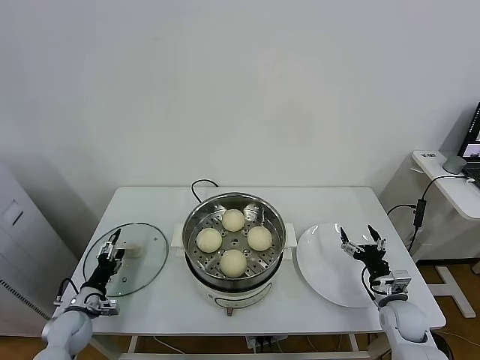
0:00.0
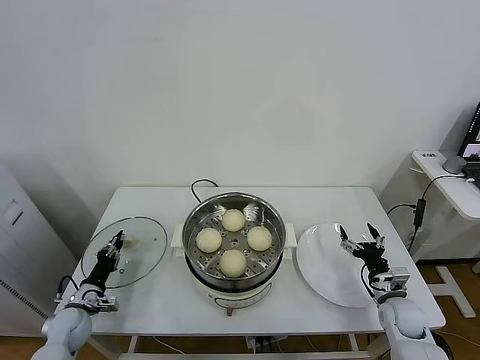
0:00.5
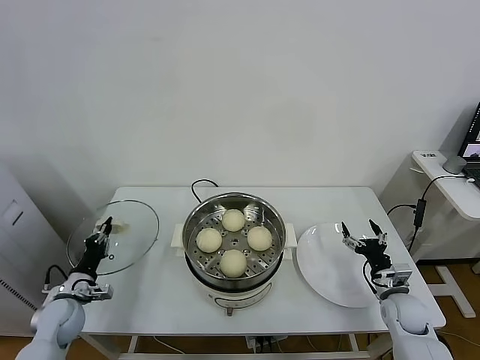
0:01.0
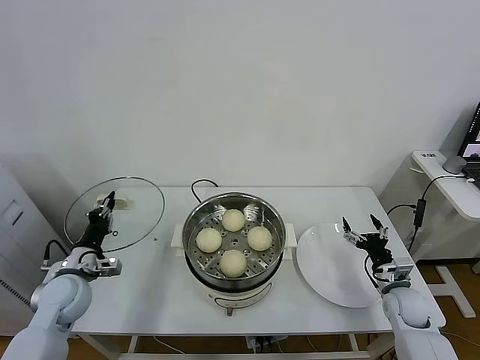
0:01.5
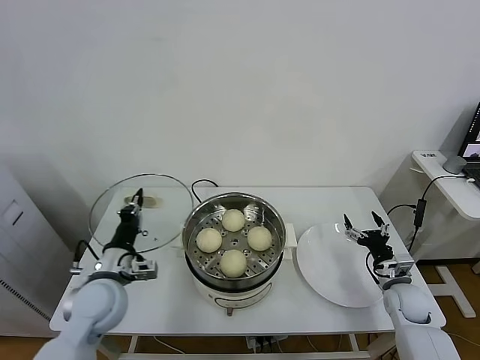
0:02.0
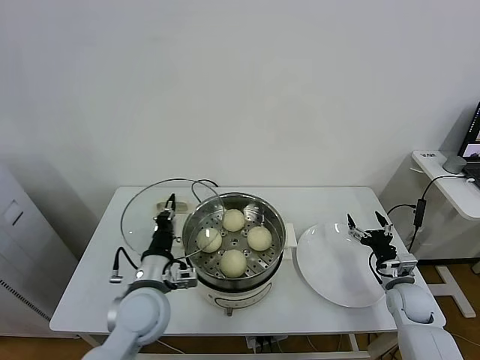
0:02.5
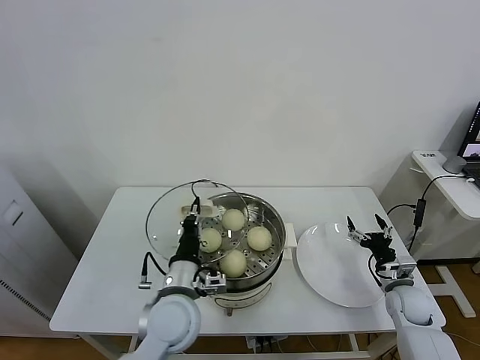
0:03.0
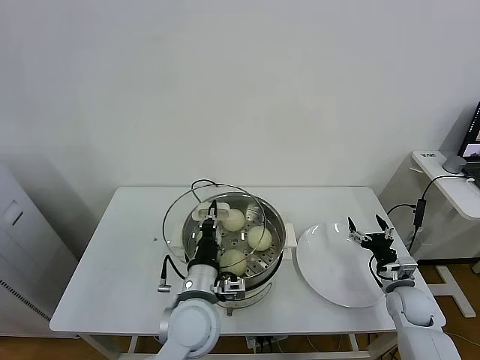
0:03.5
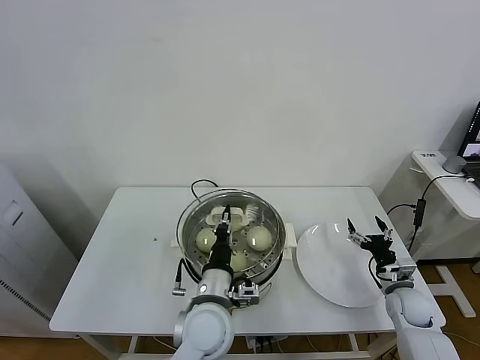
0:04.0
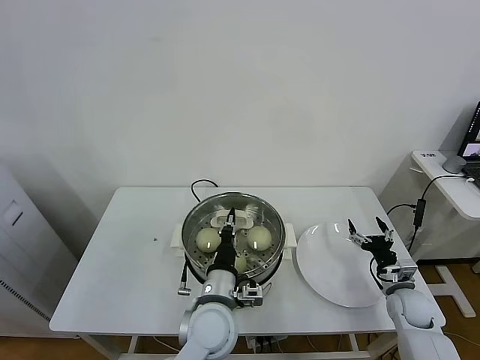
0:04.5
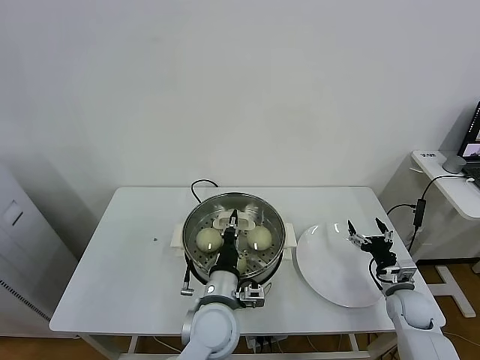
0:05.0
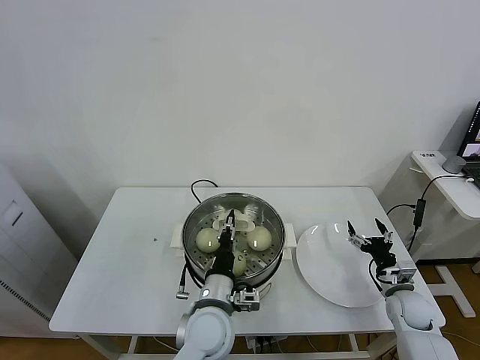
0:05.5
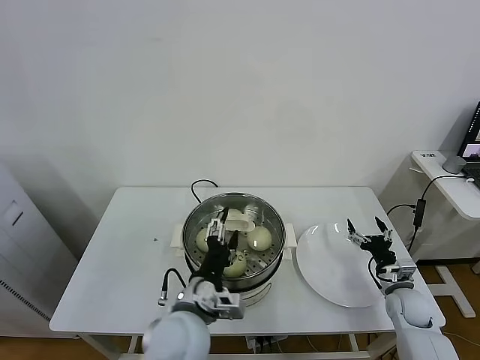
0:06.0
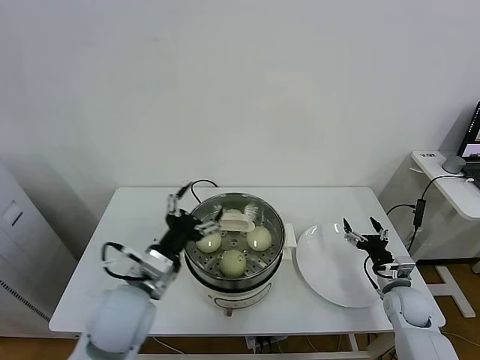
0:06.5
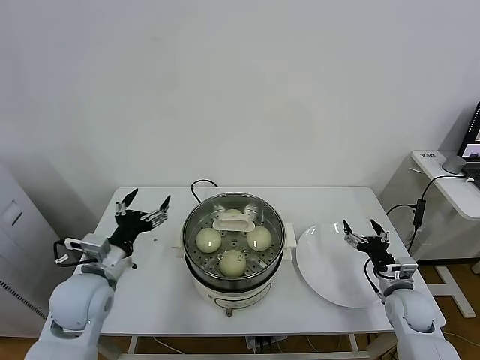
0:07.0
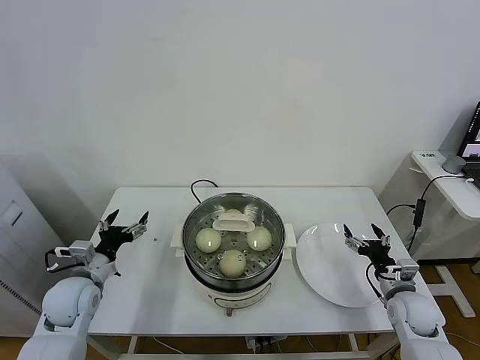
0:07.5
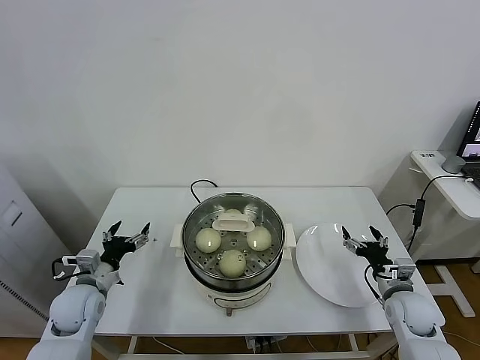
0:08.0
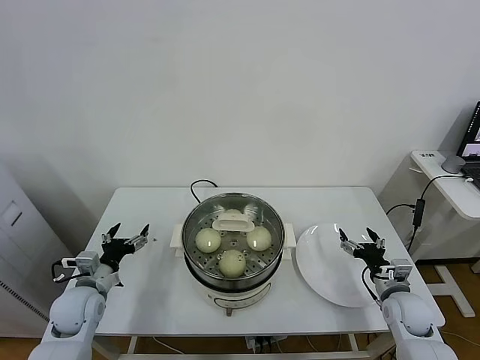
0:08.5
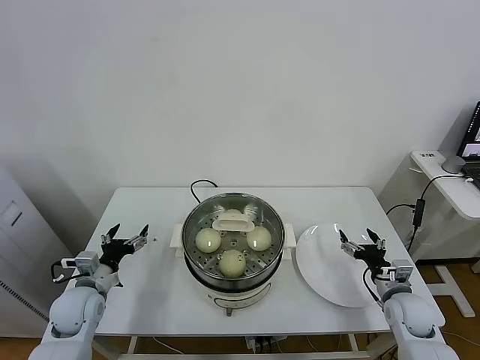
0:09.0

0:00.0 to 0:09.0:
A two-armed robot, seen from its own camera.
Task of the whole recording: take steamed baozi put them in steamer.
Step, 0:01.0 to 0:06.0: Place the pot lid on the steamer with left gripper.
0:00.0 to 0:02.0: The left gripper heads upward and to the right, covering approximately 25 cm, and closes.
0:02.0 to 0:04.5: The left gripper goes some 20 cm to the right.
0:04.5 to 0:07.0: The left gripper goes about 25 cm to the left, and opens.
0:07.0 to 0:09.0: The left gripper is displaced downward and to the left by roughly 15 cm.

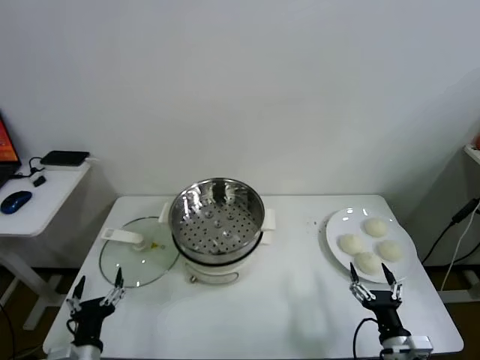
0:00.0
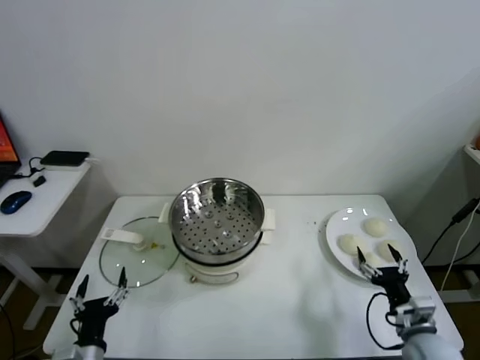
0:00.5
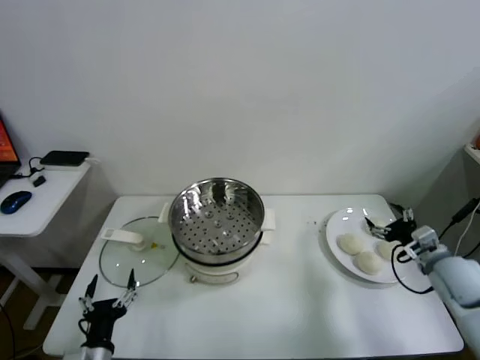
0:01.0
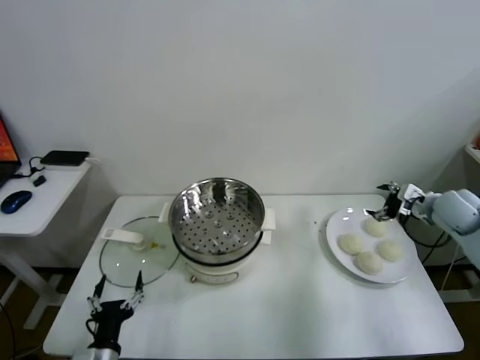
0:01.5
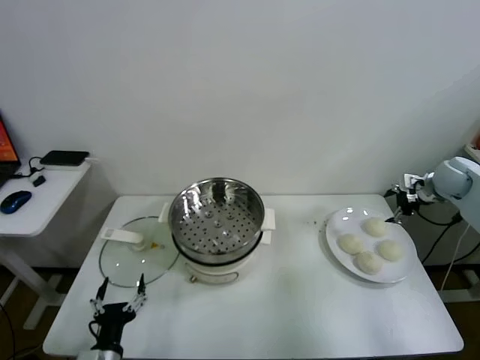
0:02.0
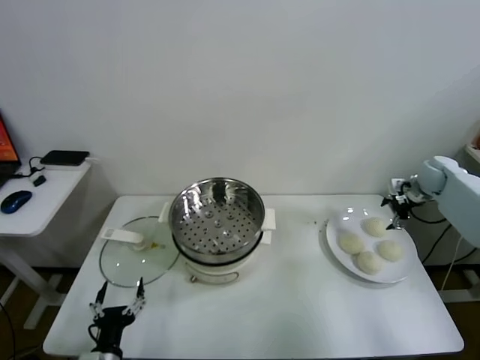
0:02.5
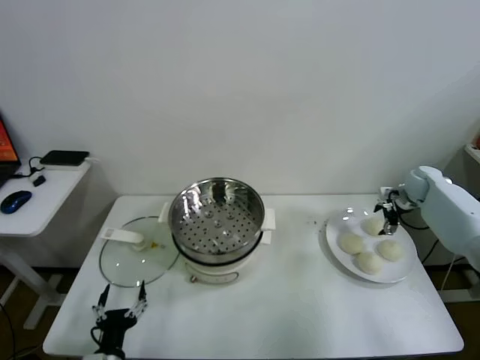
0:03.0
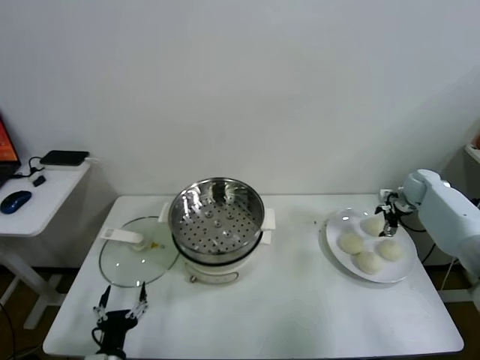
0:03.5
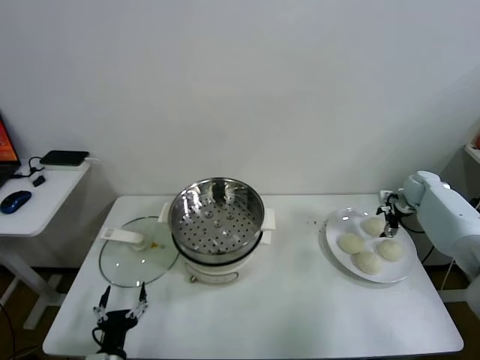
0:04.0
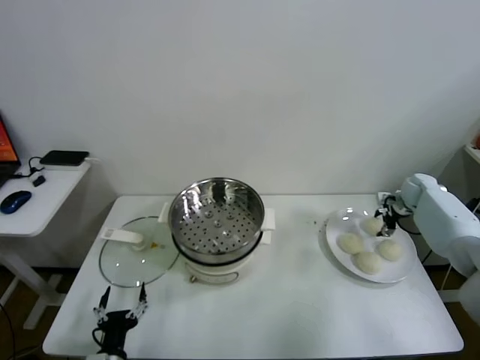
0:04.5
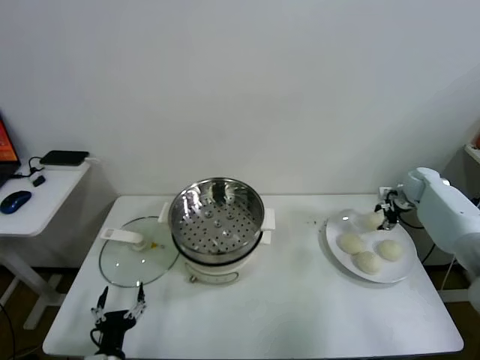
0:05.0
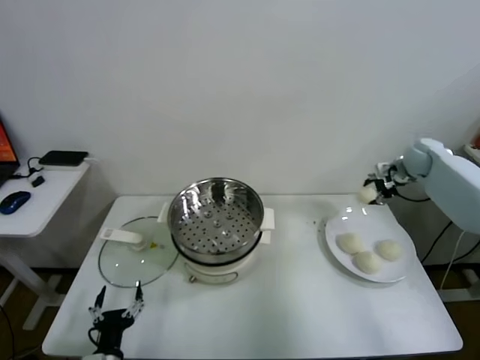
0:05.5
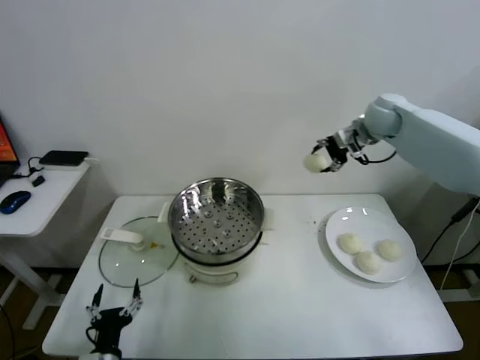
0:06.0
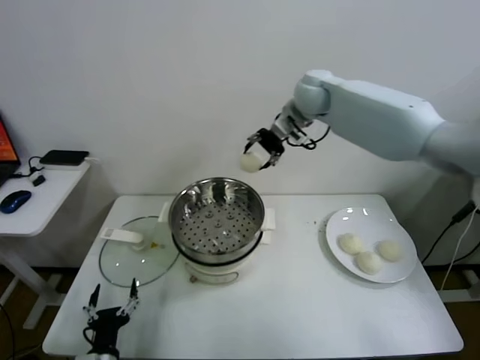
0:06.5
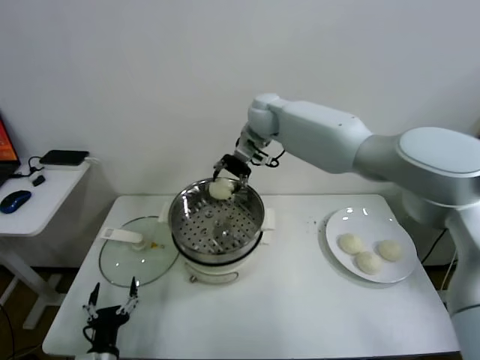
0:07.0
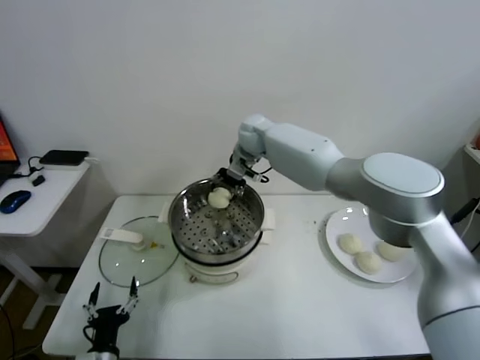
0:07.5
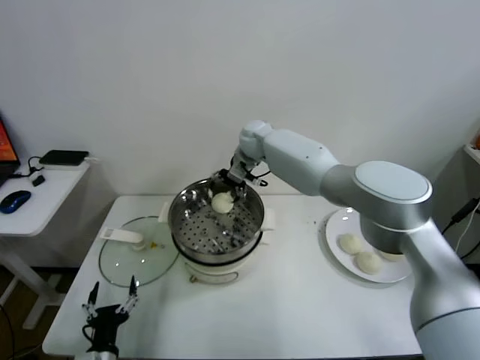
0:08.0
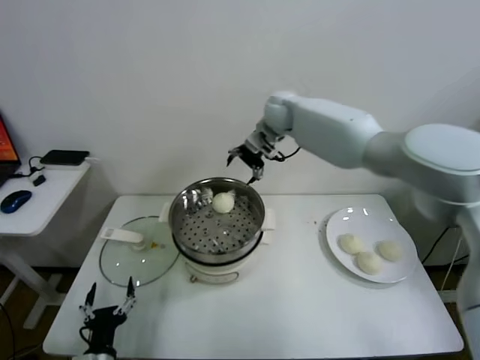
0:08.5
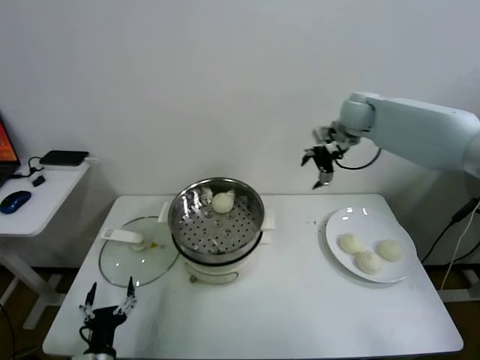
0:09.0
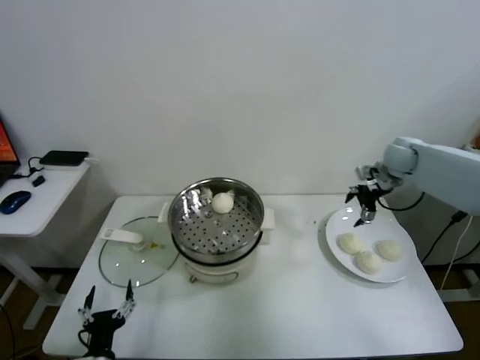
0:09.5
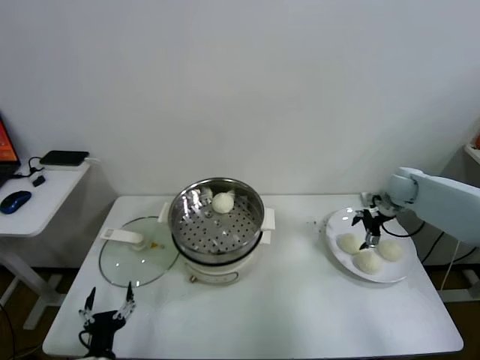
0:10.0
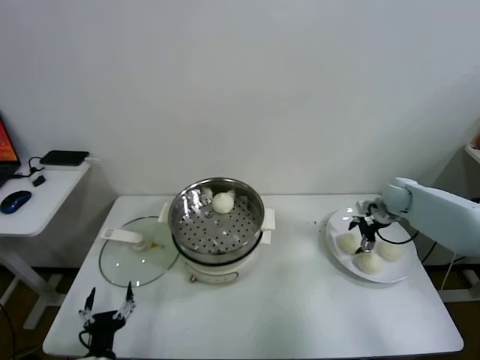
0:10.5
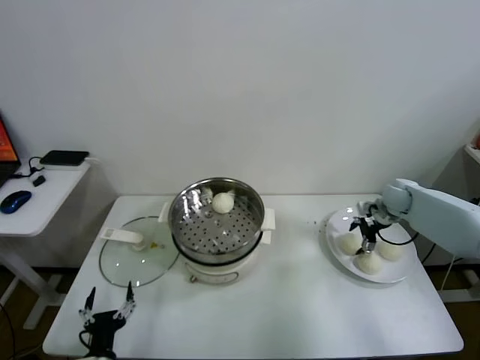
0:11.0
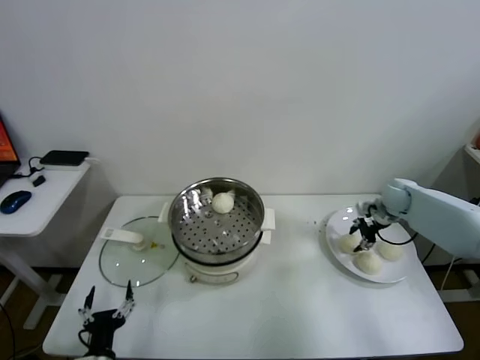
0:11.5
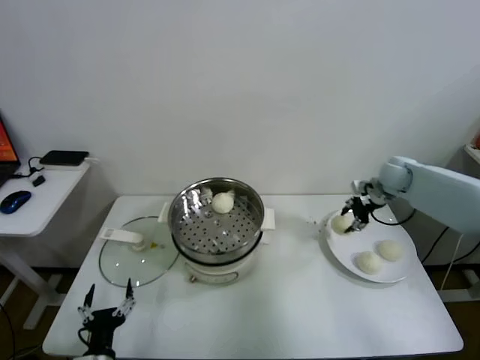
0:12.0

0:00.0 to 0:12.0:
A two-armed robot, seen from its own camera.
Task of the whole recording: take steamed baozi put them in steamer.
Step, 0:00.0 to 0:04.5: Grasp the baozi in the plate with right gripper.
Step, 0:05.0 to 0:08.0: Place the baozi on the steamer with right gripper.
Step, 0:08.5 to 0:11.5: Grasp the baozi in the plate with right gripper.
0:02.0 to 0:04.0: The right gripper goes approximately 10 cm downward.
0:04.0 to 0:06.0: The right gripper is displaced upward and to the left by some 30 cm, and closes.
0:06.0 to 0:08.0: The right gripper moves to the left, roughly 25 cm, and opens up.
0:08.0 to 0:10.0: The right gripper is displaced to the right by roughly 40 cm.
0:10.0 to 0:12.0: The right gripper travels upward by about 5 cm, and closes up.

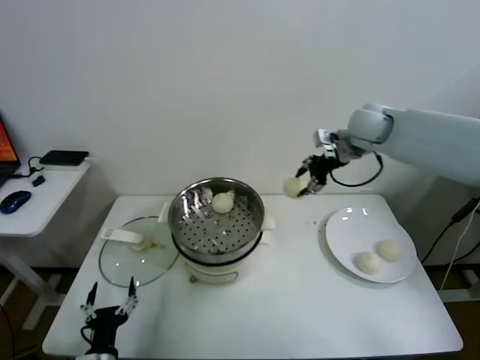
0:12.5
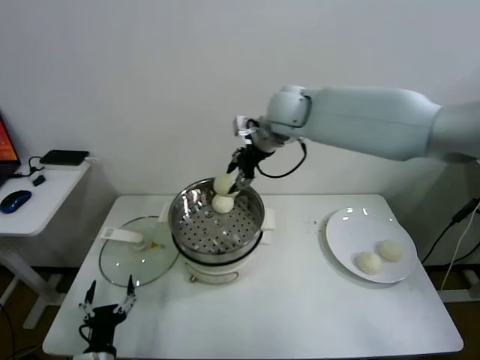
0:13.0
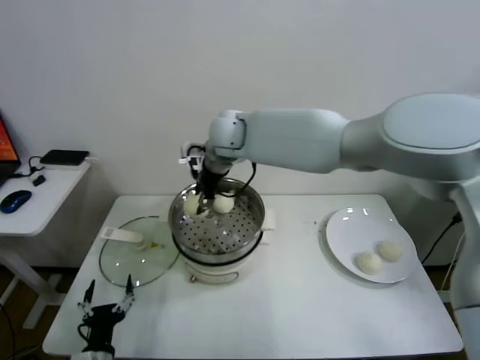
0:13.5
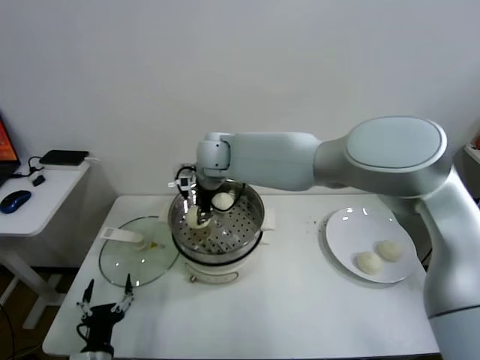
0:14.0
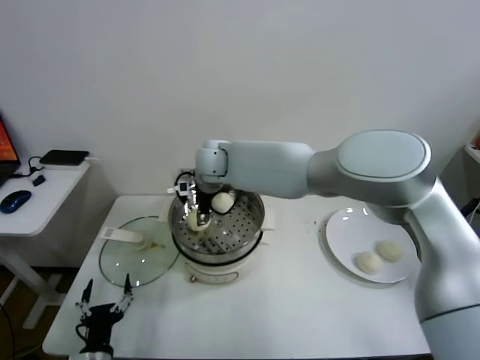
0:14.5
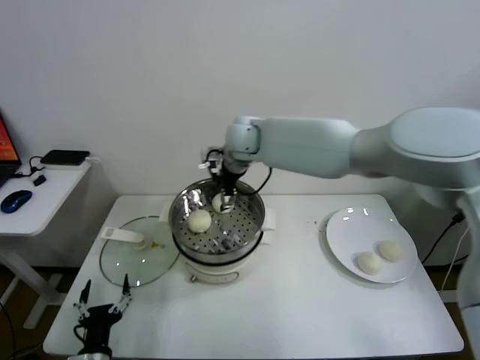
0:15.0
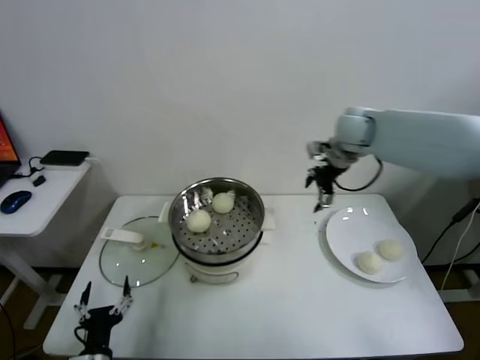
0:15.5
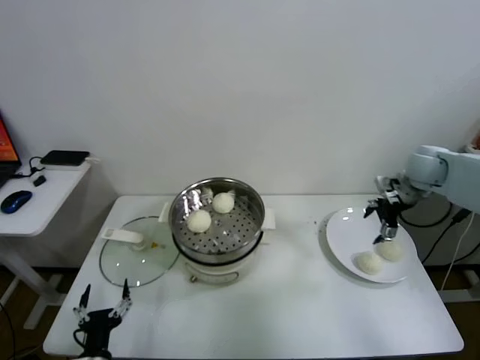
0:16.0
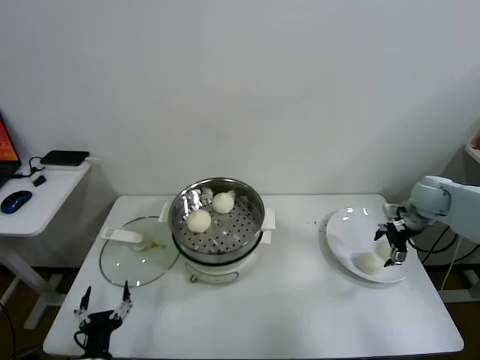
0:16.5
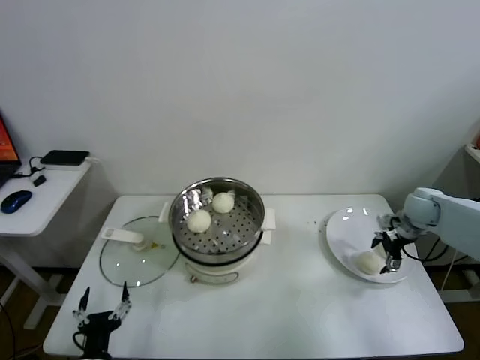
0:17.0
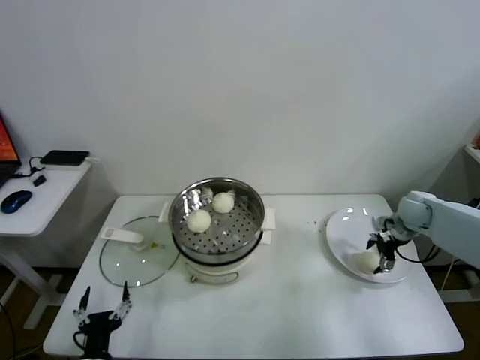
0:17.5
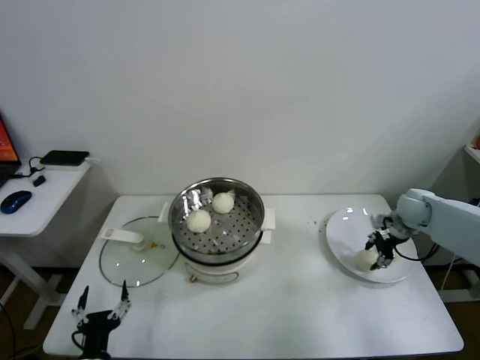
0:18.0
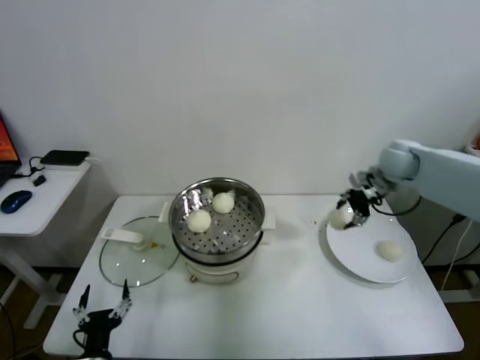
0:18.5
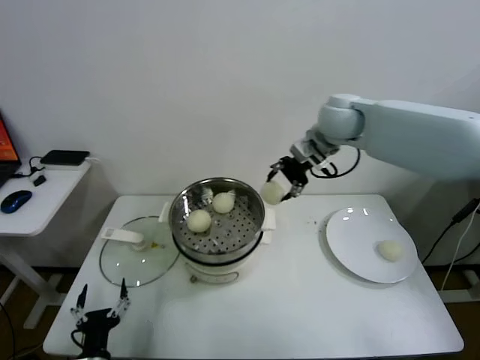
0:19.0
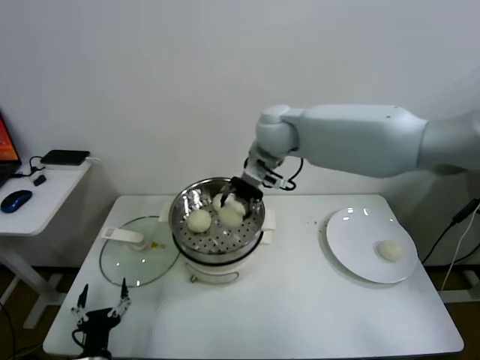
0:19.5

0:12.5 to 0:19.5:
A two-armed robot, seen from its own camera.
Task of the whole recording: take steamed baozi put them in steamer.
Step, 0:12.5 to 0:14.5: Place the baozi on the steamer with right gripper.
Step, 0:15.0 to 0:18.0: Grasp the baozi in the plate with right gripper.
0:12.5 to 0:14.5: The right gripper travels to the left by about 30 cm, and opens its fingers.
0:14.5 to 0:16.0: The right gripper is displaced to the right by roughly 50 cm.
0:16.0 to 0:17.5: The right gripper travels downward by approximately 15 cm.
0:17.5 to 0:19.5: The right gripper heads to the left and upward, covering some 40 cm, and closes.
